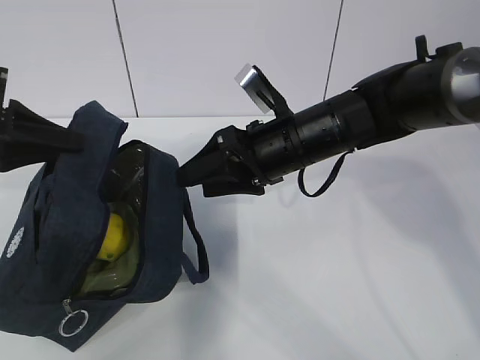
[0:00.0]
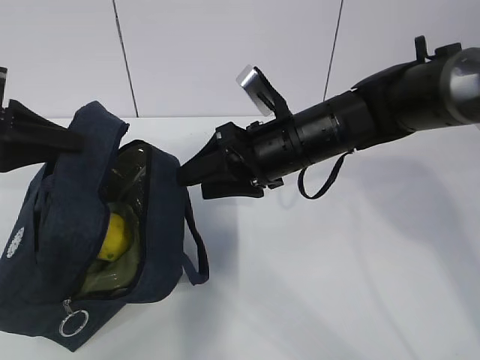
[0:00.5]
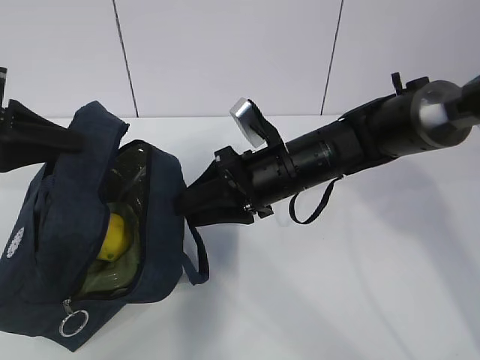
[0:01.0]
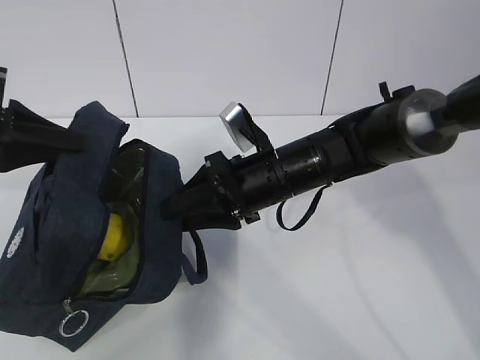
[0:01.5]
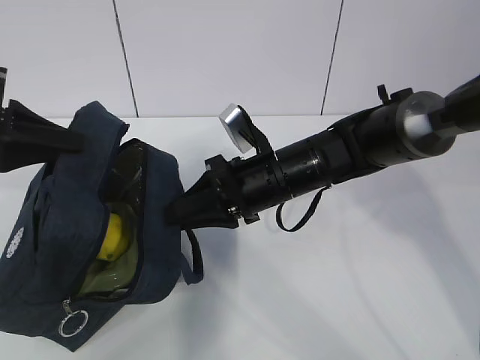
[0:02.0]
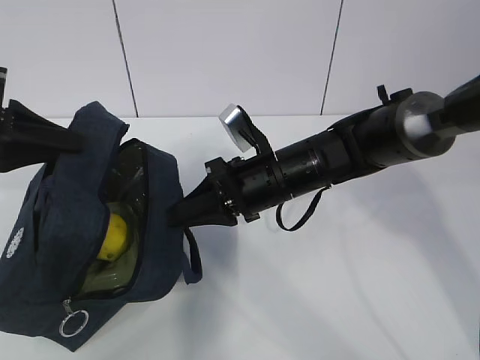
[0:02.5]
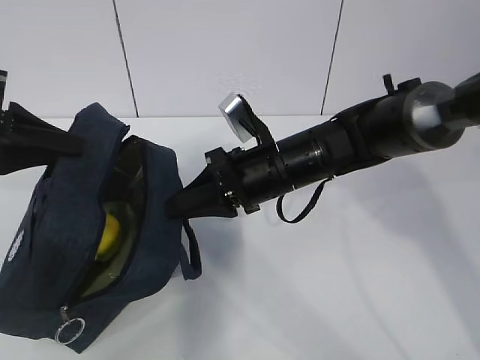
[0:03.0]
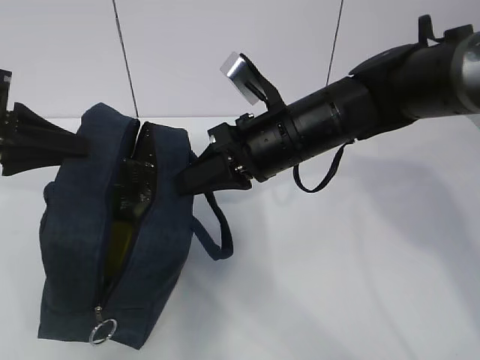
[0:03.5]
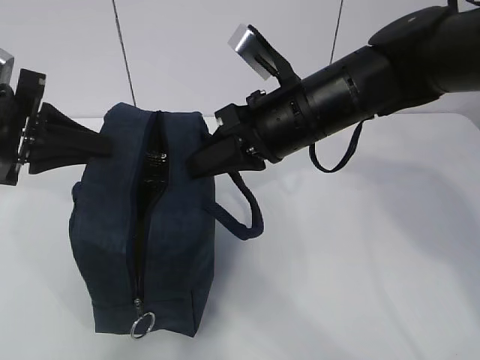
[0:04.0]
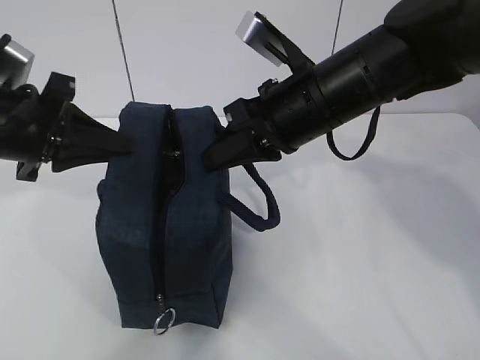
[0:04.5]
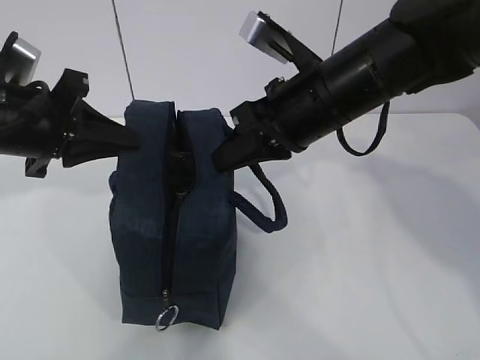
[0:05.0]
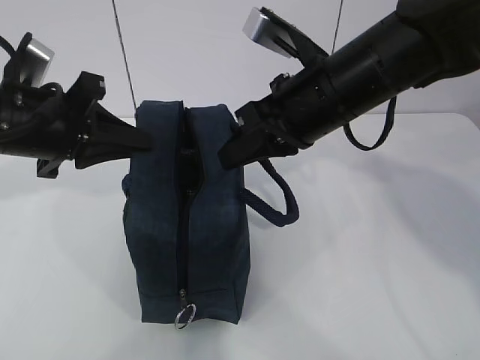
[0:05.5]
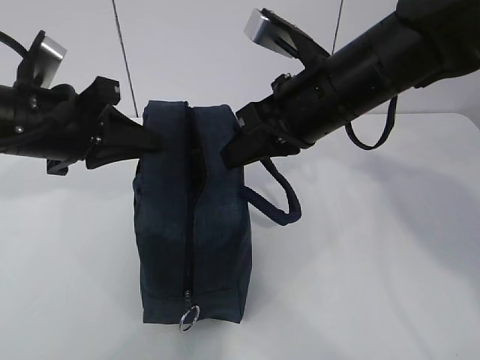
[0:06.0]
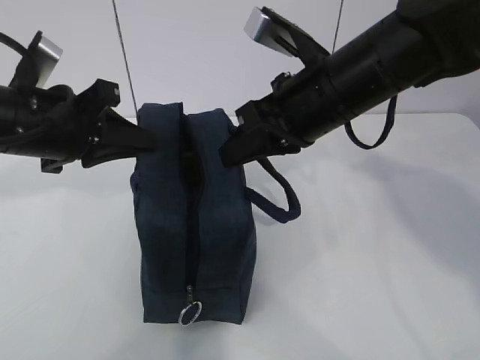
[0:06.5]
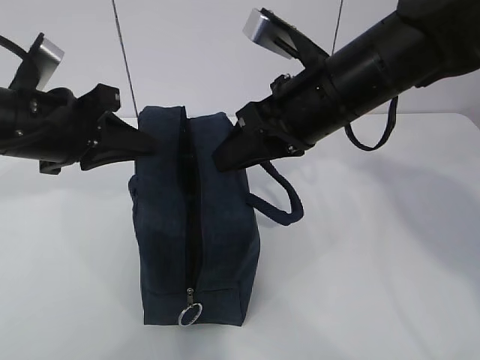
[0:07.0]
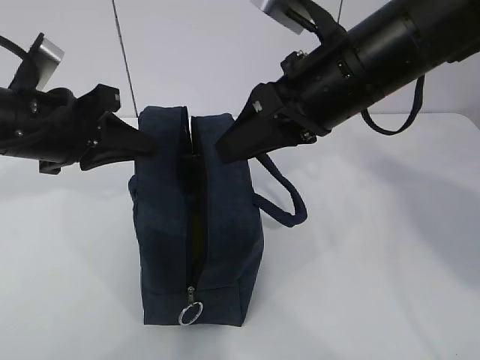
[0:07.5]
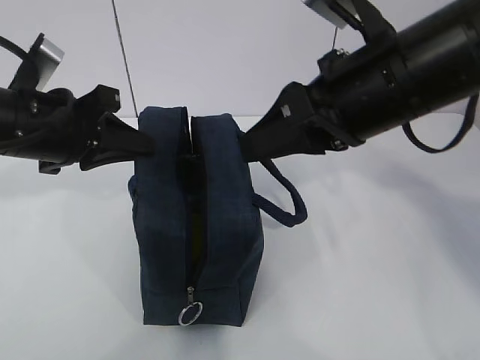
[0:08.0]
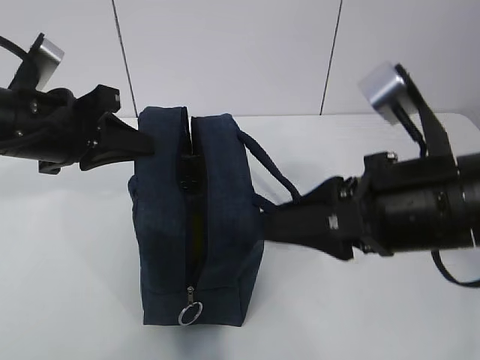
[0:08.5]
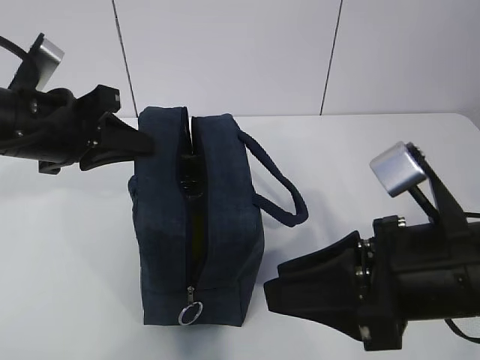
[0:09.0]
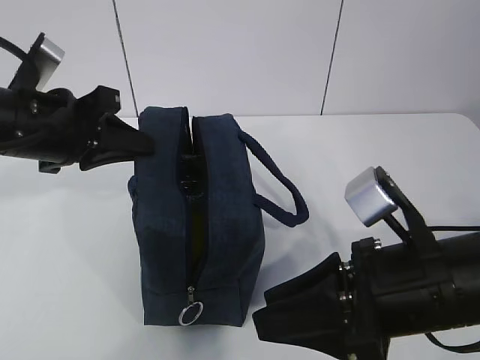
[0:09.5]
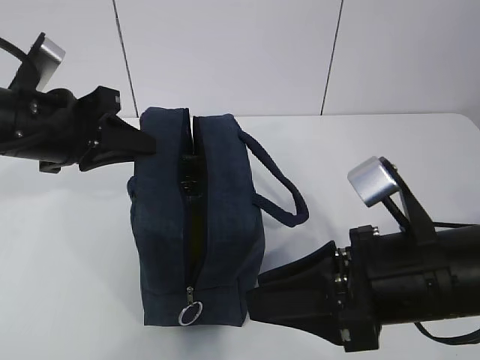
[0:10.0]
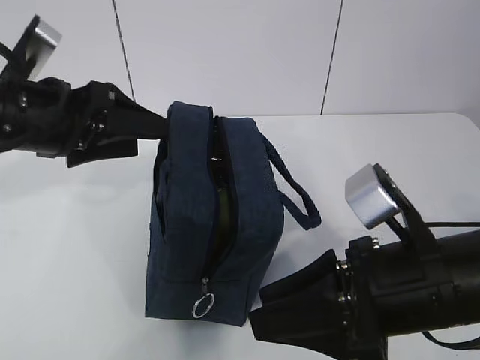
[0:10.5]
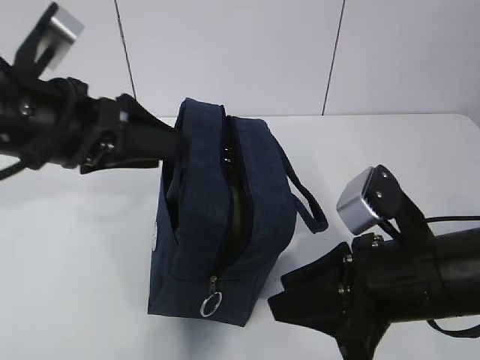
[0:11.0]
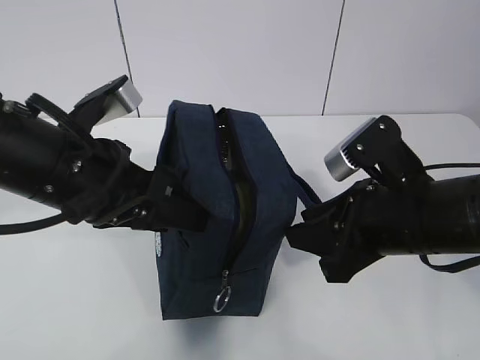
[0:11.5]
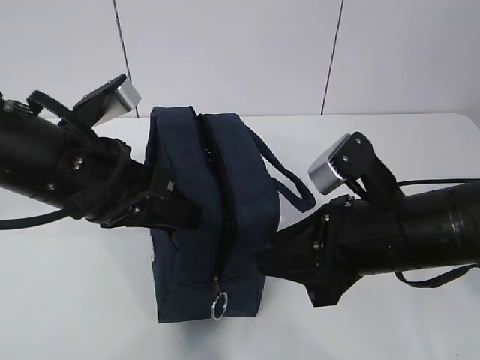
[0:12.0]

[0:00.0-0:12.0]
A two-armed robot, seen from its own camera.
0:00.0 to 0:02.0: The right gripper closes its fingers.
0:02.0 to 0:04.0: The right gripper travels upward by some 10 cm.
0:04.0 to 0:06.0: The left gripper shifts about 5 cm to the right.
0:06.0 to 0:08.0: The right gripper heads backward, covering roughly 5 cm, and opens up.
0:08.0 to 0:10.0: The right gripper goes about 15 cm downward and backward.
0:10.0 to 0:12.0: The left gripper is displaced backward and to the right by about 10 cm, and opens up.

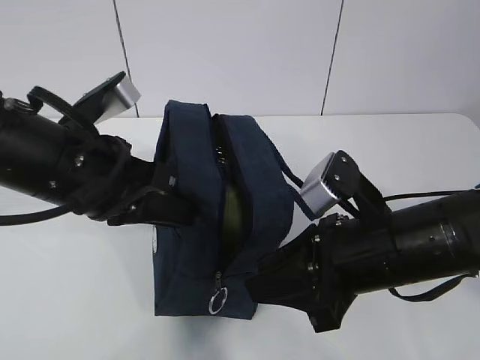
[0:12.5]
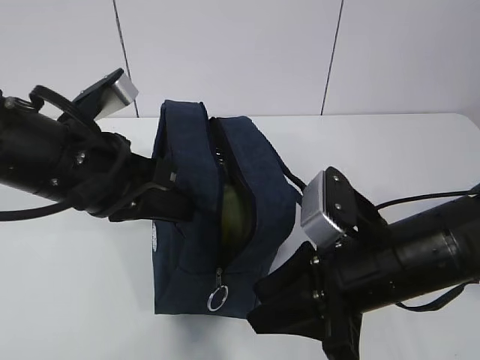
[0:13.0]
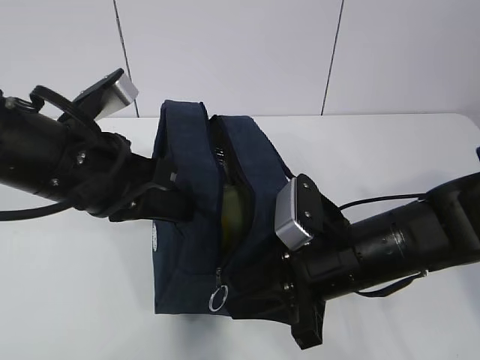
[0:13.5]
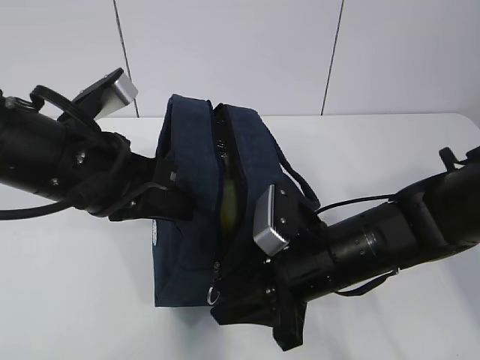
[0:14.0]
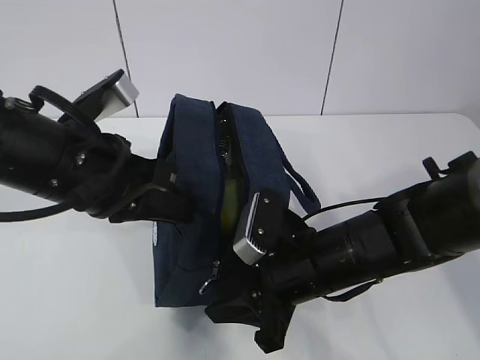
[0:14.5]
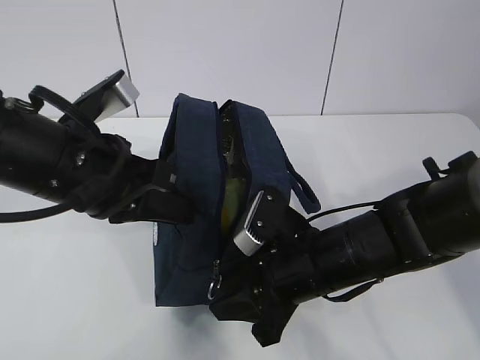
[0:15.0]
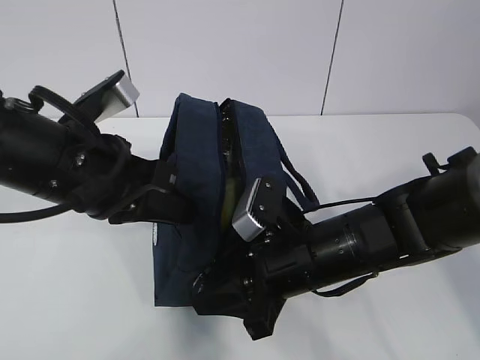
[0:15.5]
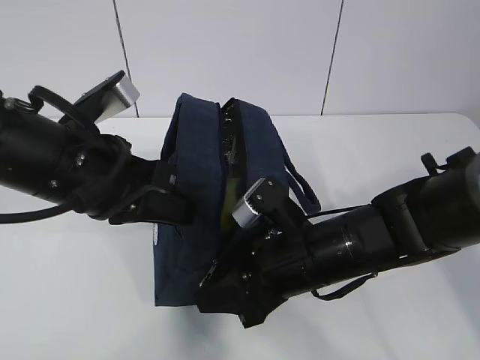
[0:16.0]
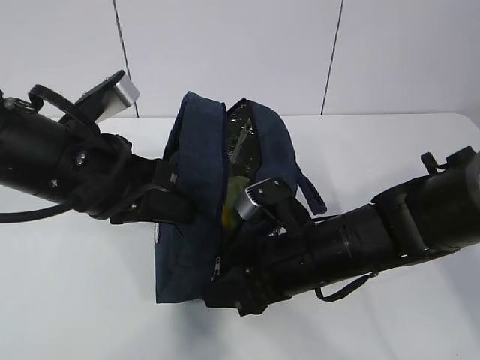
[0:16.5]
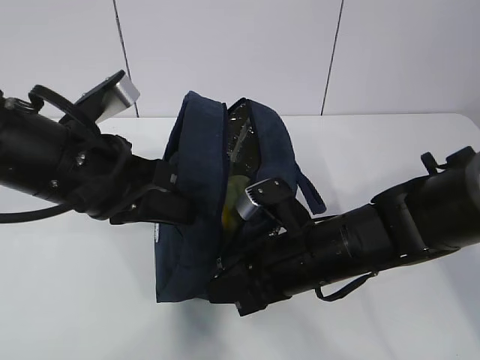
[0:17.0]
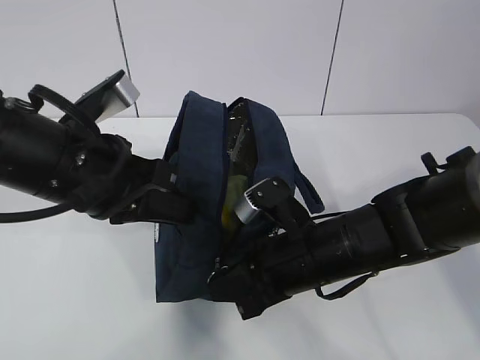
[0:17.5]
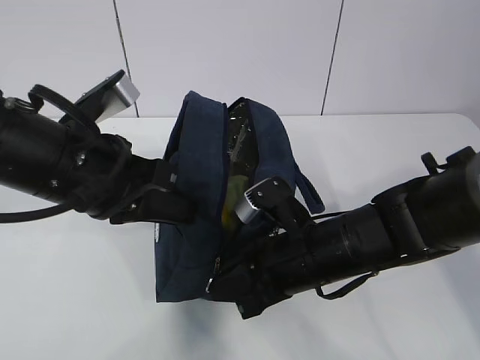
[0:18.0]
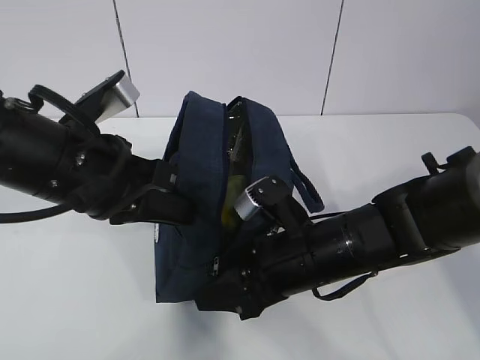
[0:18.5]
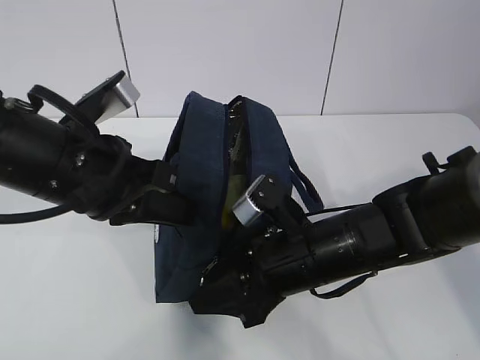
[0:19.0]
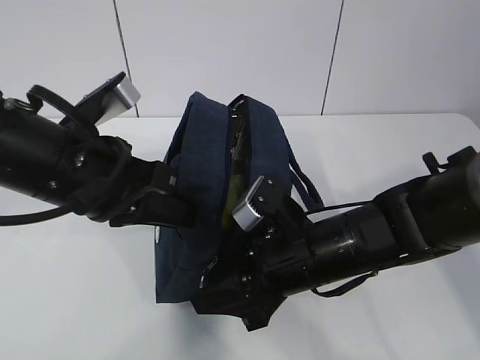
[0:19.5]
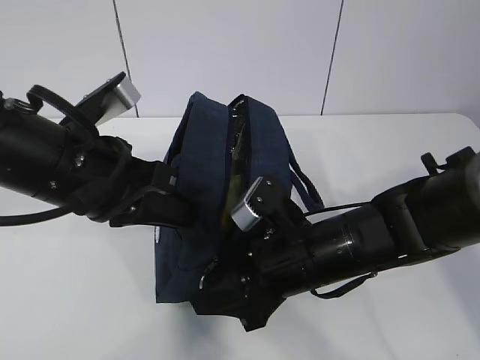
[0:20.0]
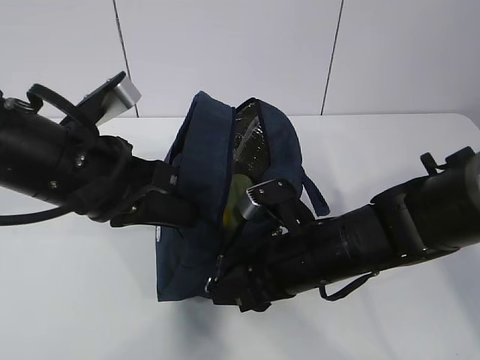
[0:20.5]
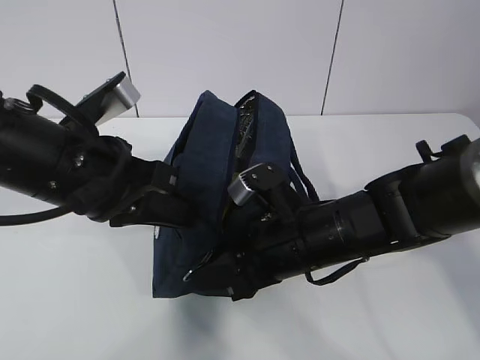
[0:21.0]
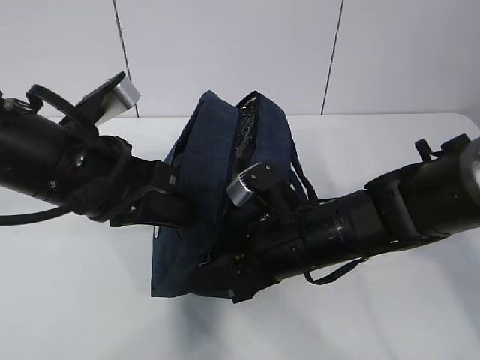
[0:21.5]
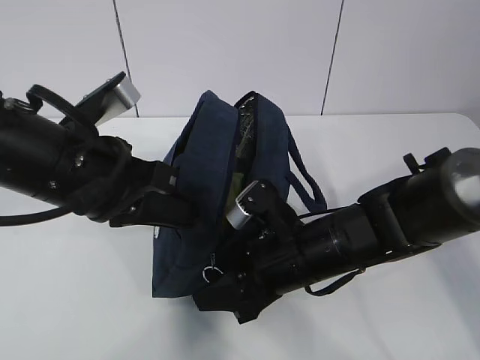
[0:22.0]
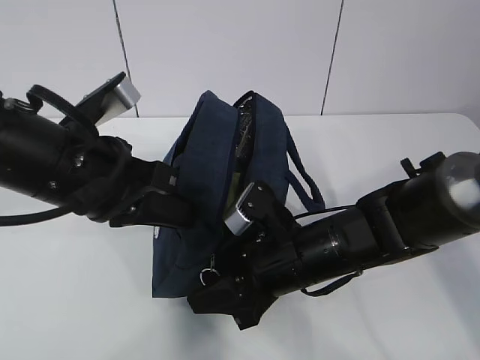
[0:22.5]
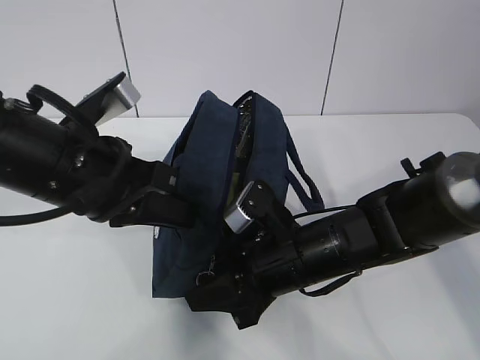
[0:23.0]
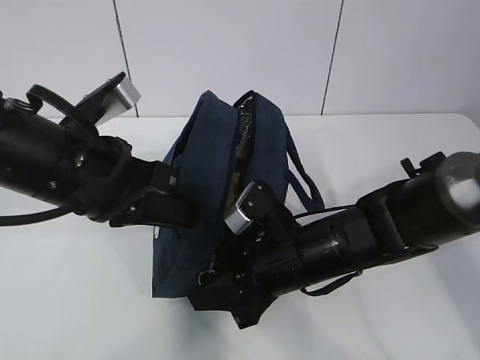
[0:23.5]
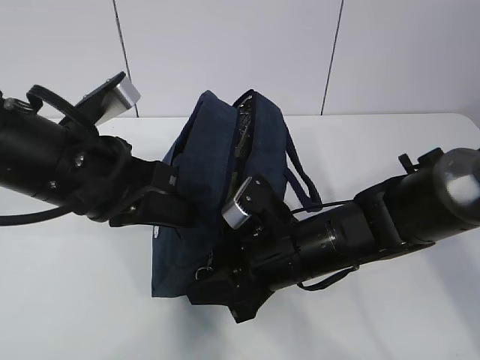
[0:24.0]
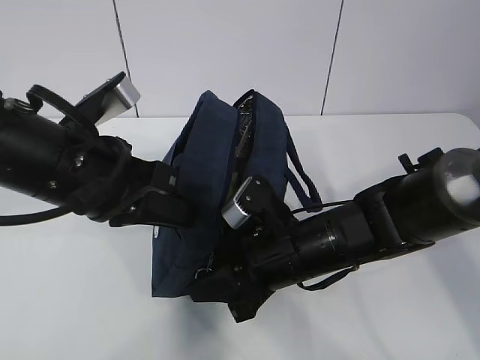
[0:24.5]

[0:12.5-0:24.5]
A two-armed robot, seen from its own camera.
0:12.5 to 0:14.5: The right gripper moves downward, some 5 cm.
0:16.5 to 0:18.5: The right gripper closes and opens again.
0:18.5 to 0:22.5: The grippers make only small movements.
0:22.5 to 0:24.5: Both grippers stay put.

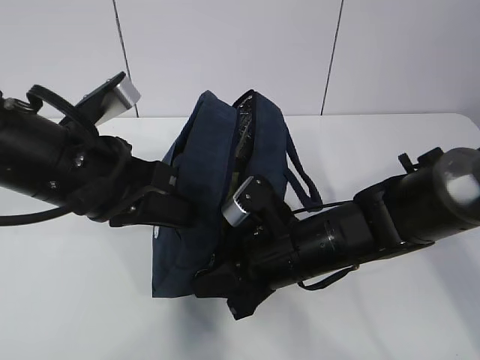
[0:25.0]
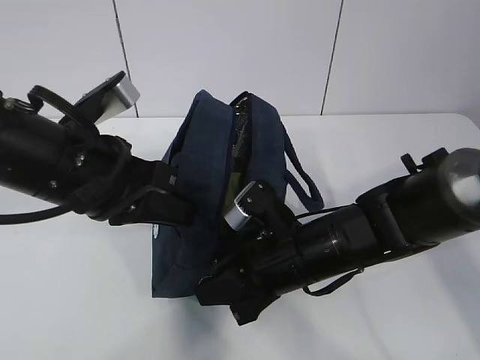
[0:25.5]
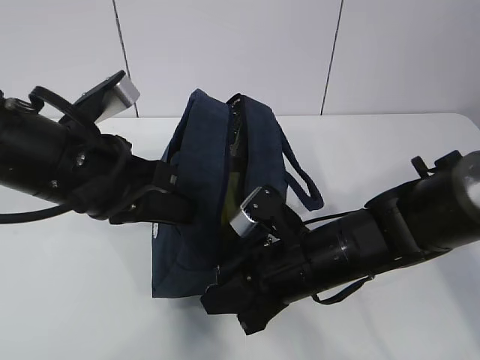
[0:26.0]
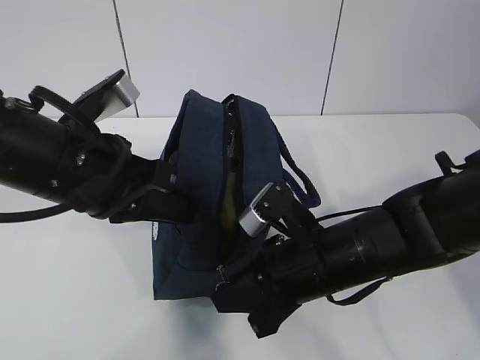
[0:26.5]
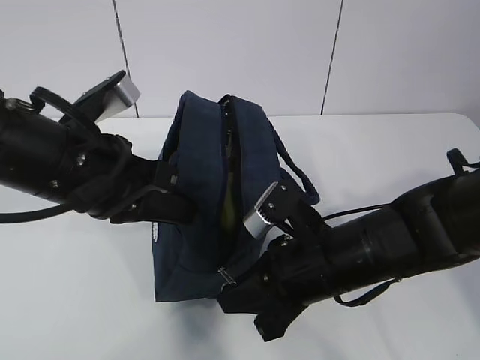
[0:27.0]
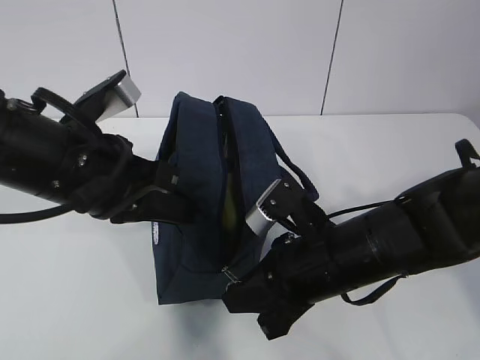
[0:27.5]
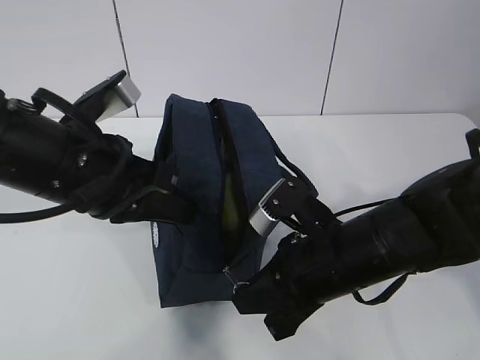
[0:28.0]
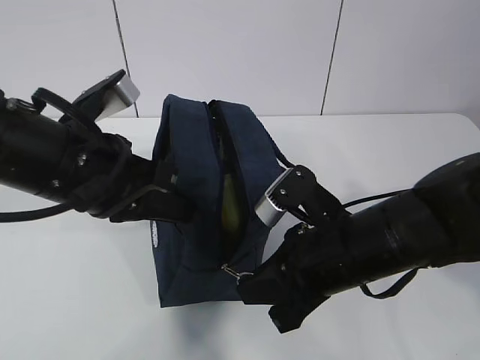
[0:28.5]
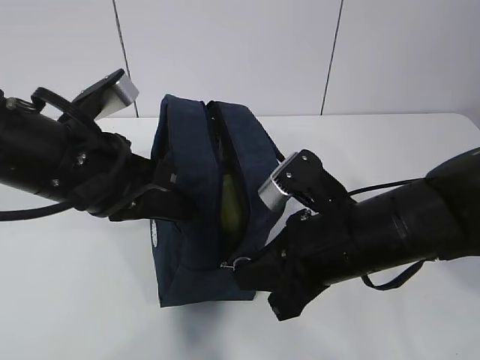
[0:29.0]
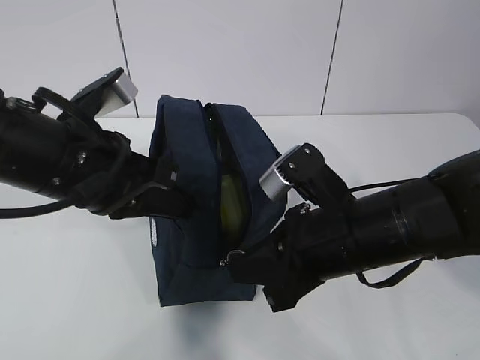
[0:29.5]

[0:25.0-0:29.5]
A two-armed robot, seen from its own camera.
Step, 0:25.0 to 0:28.5: Pull the zipper with your right hand.
0:25.0 to 0:27.0: The grippers stay close to where they were, moving slightly.
0:27.0 to 0:29.5: The grippers stay close to where they were, moving slightly.
